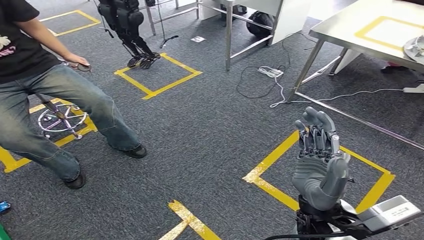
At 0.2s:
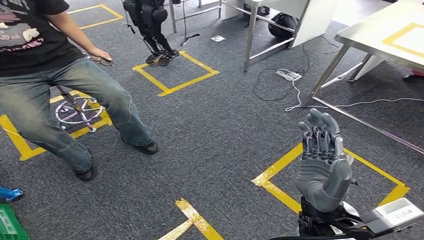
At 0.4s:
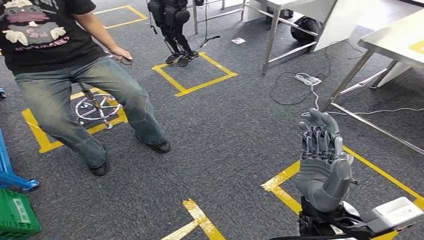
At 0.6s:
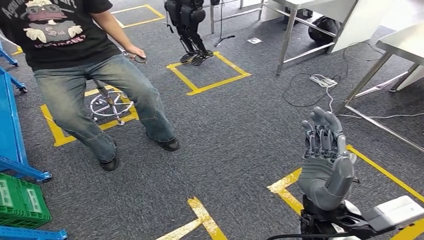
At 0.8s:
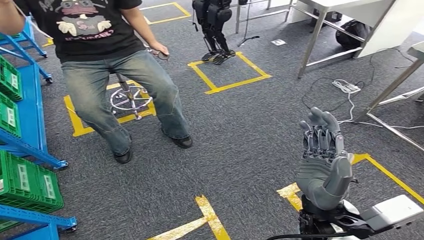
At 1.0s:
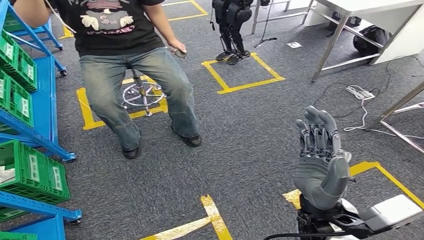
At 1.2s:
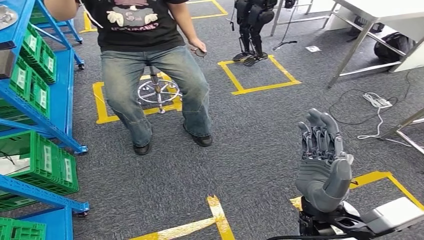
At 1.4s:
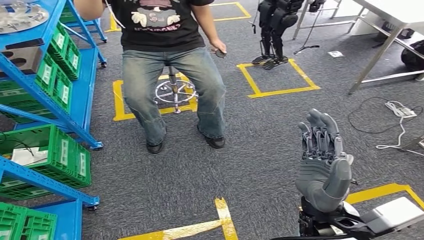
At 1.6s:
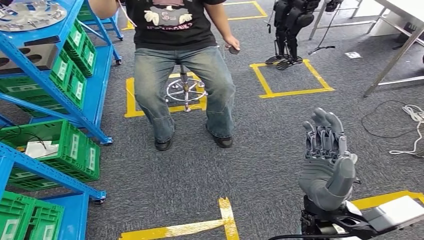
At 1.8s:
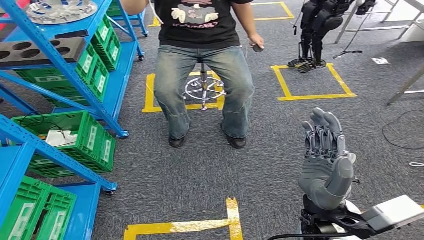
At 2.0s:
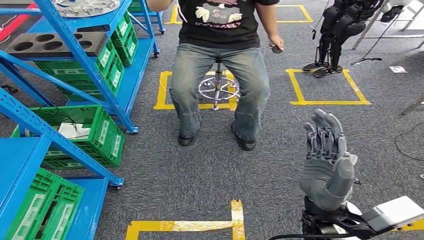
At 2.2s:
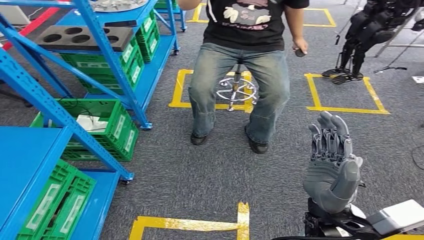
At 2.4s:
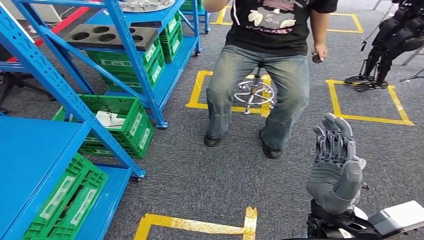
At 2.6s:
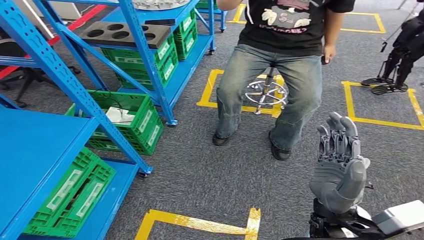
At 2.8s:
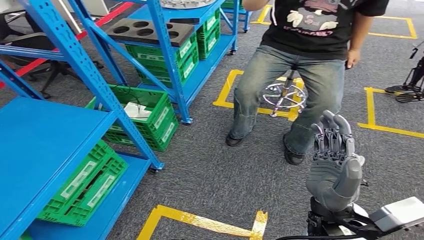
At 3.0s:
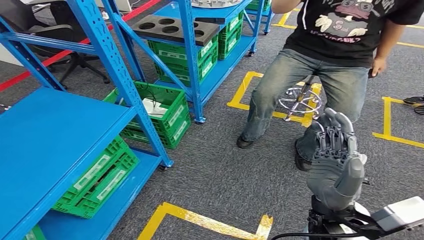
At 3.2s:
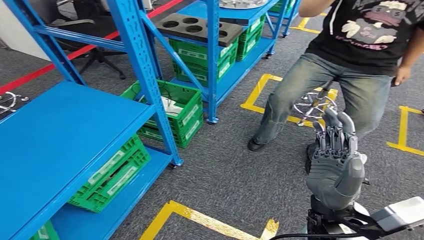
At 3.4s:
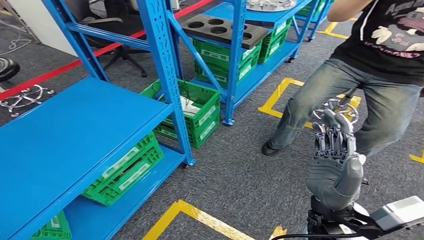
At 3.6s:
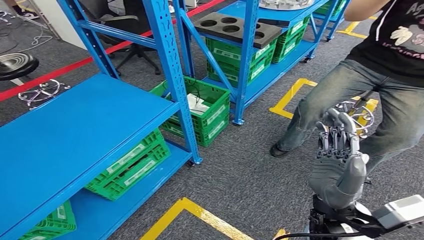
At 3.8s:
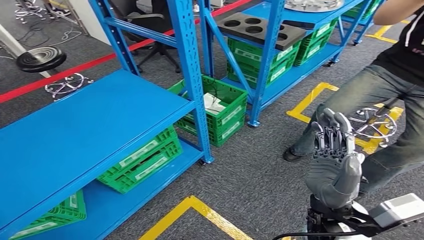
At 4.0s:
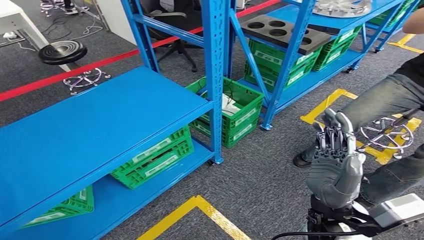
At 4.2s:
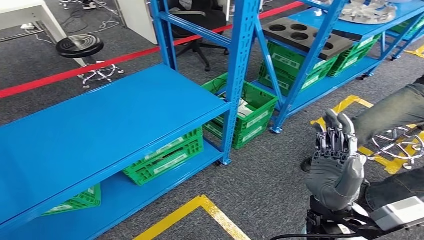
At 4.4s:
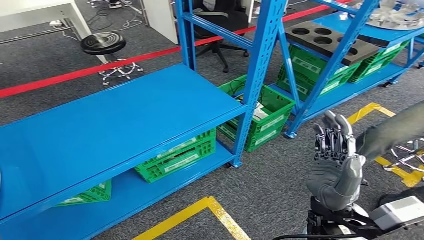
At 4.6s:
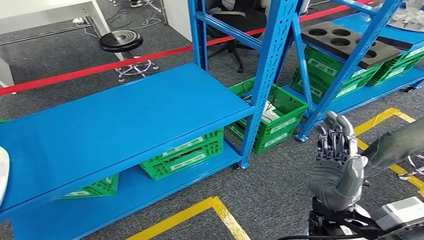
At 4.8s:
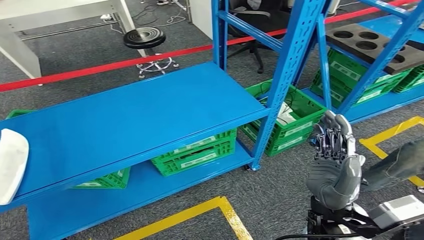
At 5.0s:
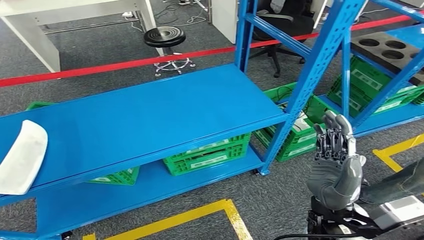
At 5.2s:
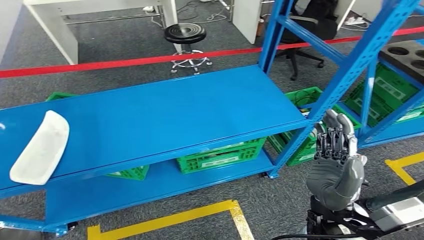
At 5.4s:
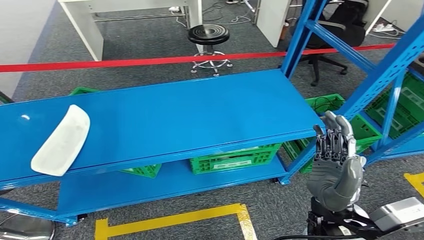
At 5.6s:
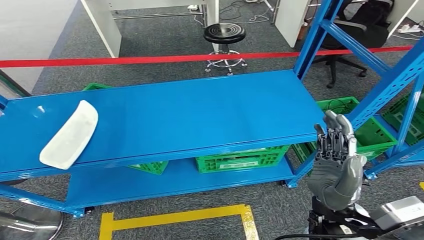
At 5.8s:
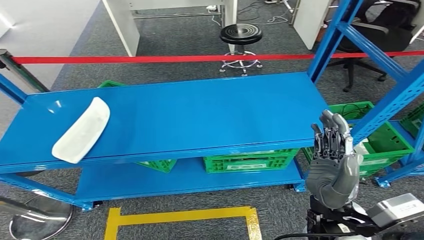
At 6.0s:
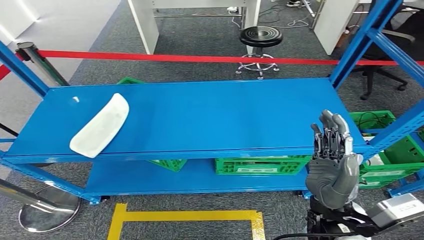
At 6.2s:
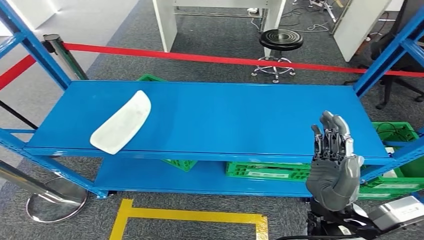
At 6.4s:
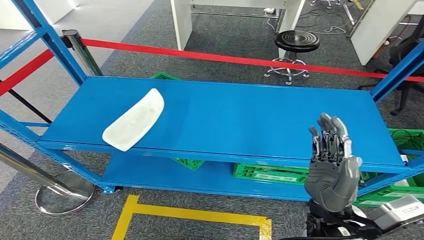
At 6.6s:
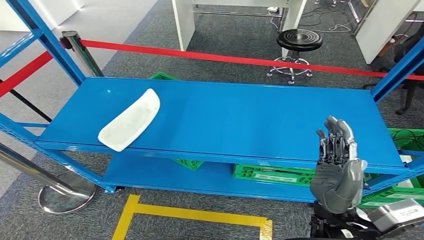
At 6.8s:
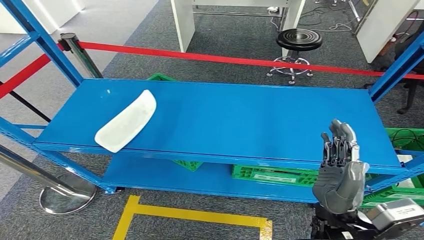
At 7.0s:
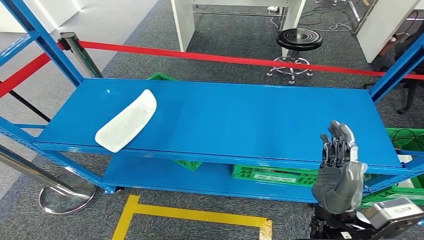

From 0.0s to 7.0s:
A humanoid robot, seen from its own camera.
Step, from 0.0s to 7.0s: Move to the initial position of the workbench.

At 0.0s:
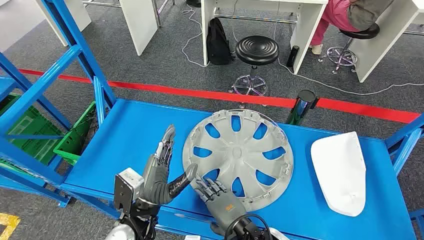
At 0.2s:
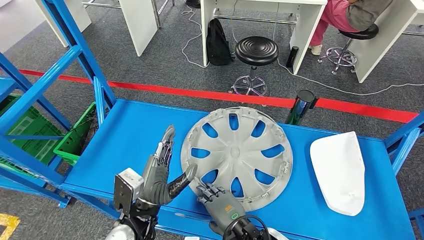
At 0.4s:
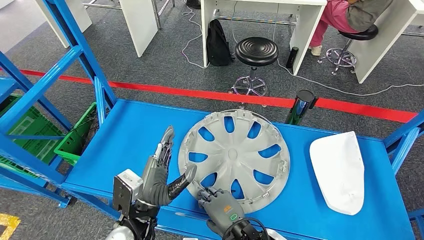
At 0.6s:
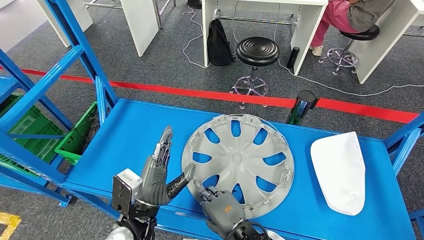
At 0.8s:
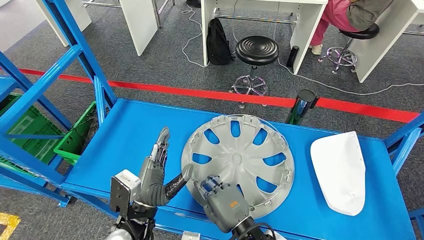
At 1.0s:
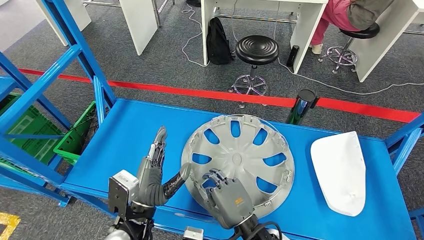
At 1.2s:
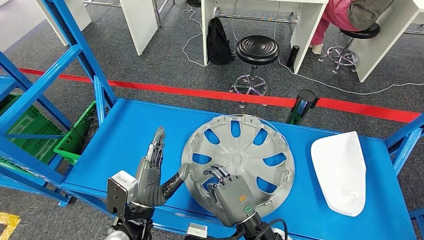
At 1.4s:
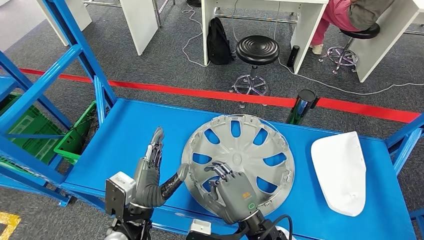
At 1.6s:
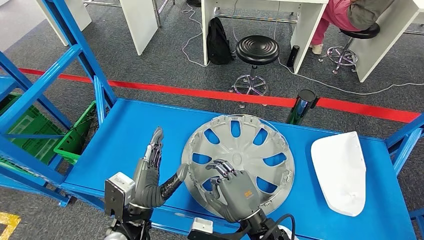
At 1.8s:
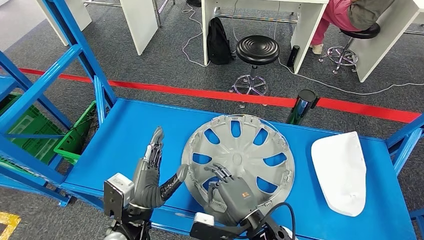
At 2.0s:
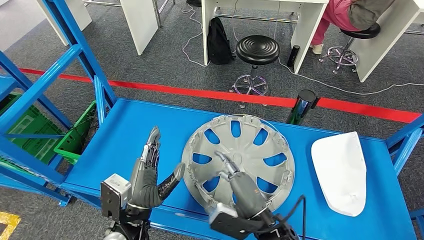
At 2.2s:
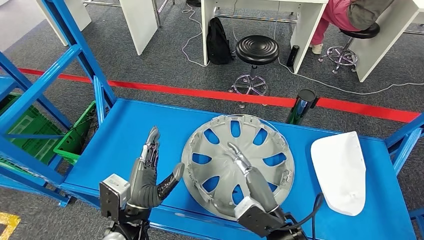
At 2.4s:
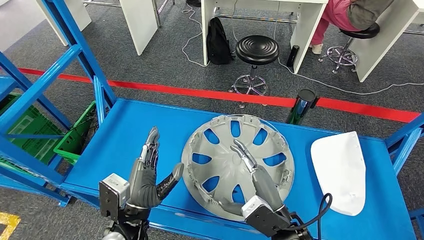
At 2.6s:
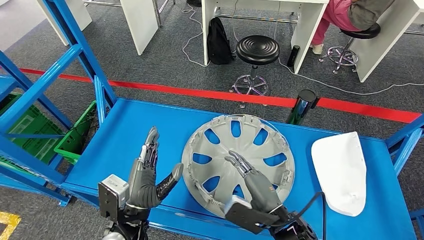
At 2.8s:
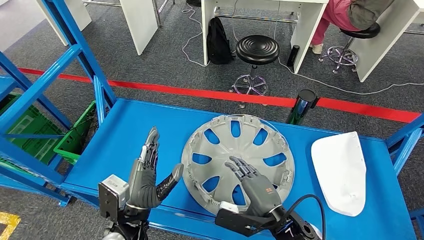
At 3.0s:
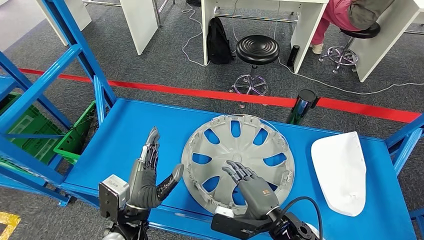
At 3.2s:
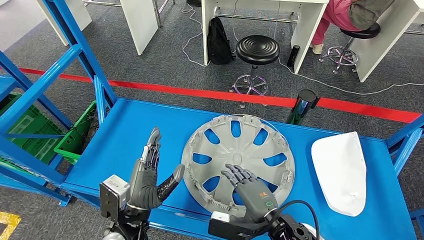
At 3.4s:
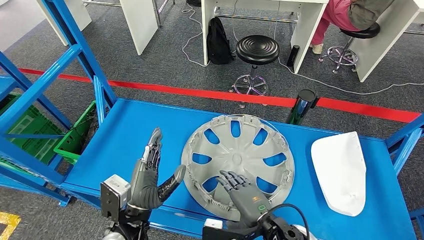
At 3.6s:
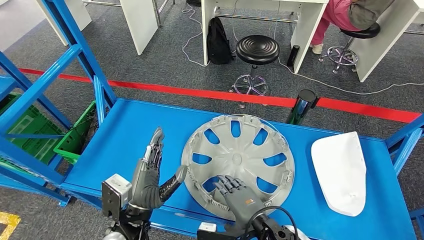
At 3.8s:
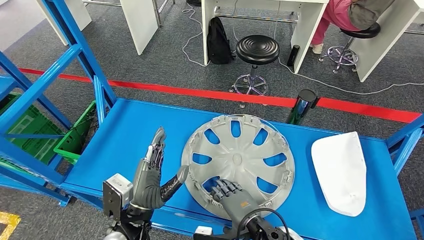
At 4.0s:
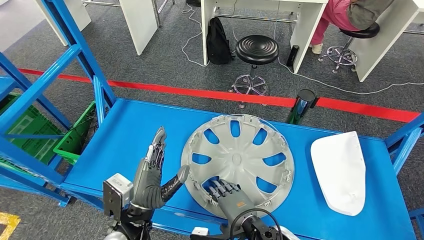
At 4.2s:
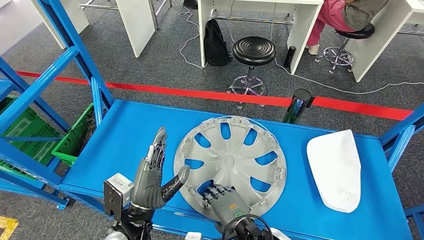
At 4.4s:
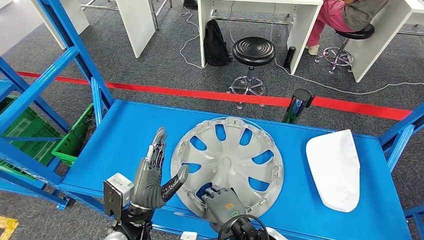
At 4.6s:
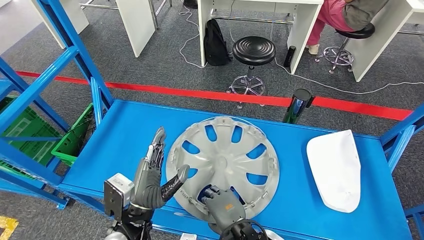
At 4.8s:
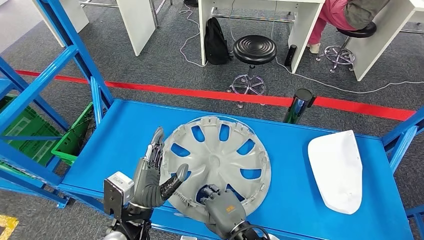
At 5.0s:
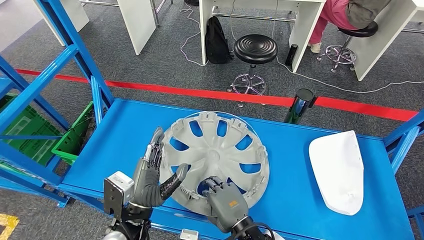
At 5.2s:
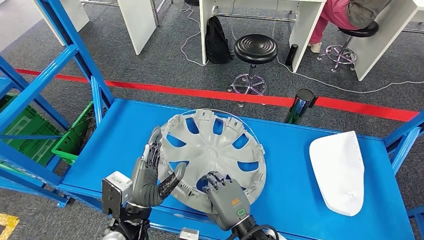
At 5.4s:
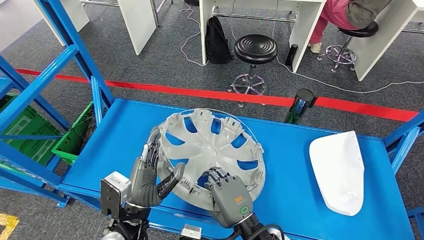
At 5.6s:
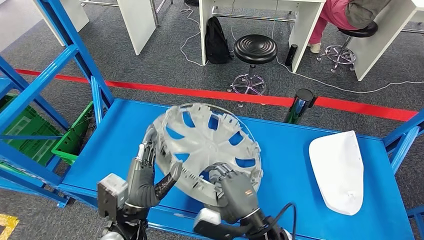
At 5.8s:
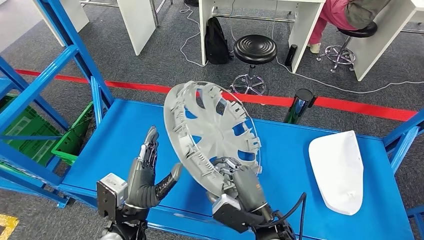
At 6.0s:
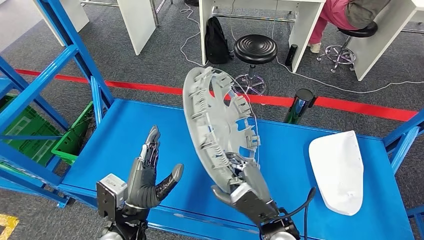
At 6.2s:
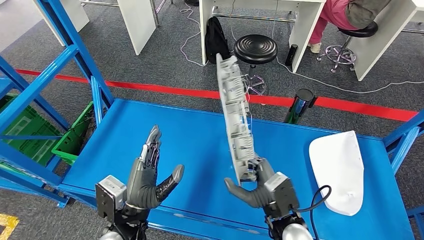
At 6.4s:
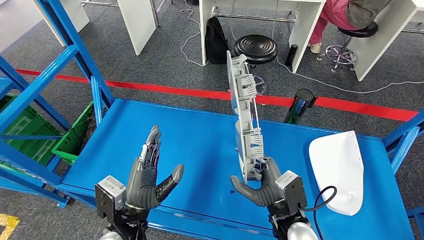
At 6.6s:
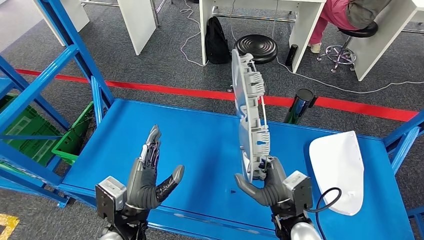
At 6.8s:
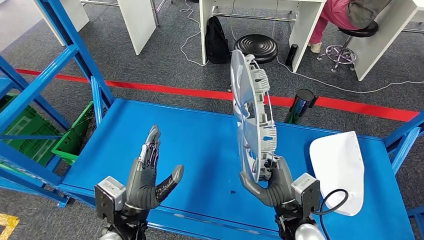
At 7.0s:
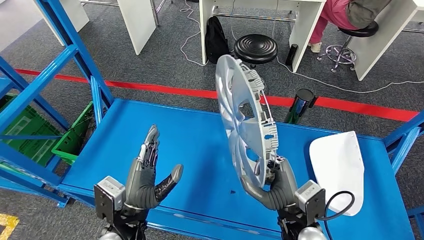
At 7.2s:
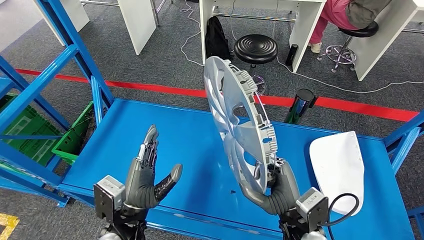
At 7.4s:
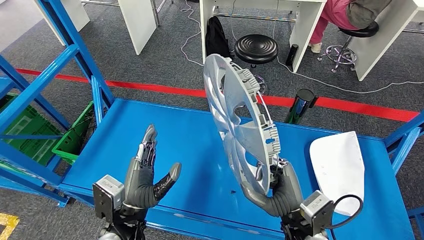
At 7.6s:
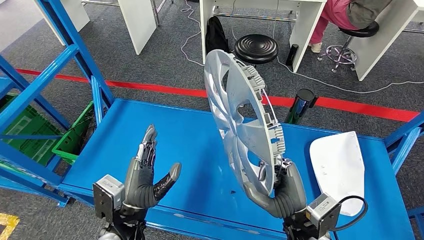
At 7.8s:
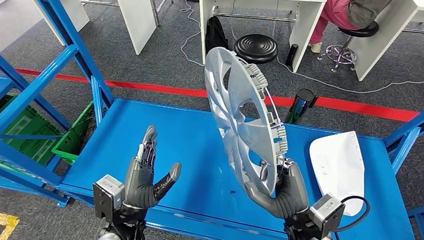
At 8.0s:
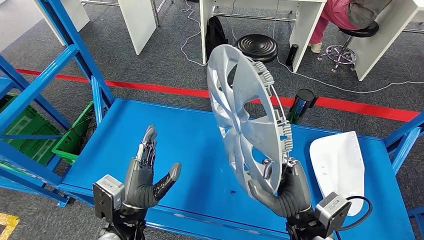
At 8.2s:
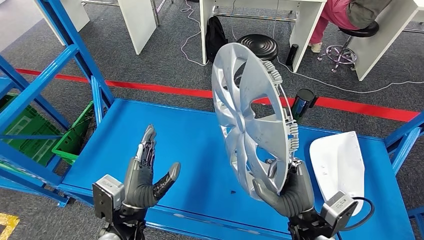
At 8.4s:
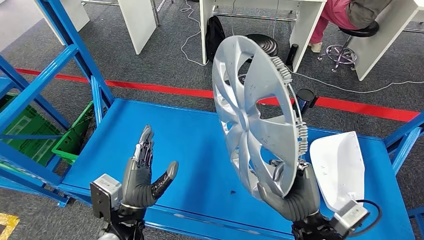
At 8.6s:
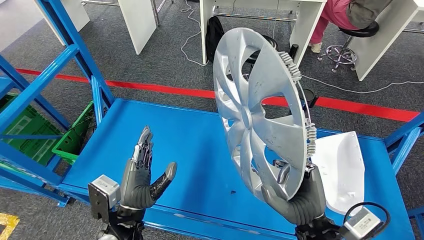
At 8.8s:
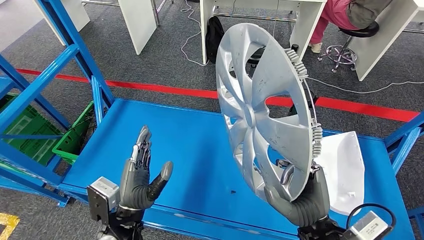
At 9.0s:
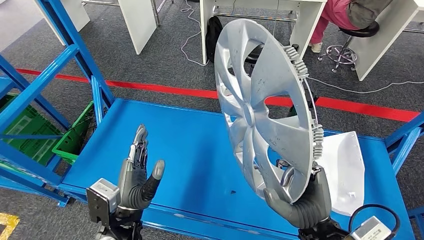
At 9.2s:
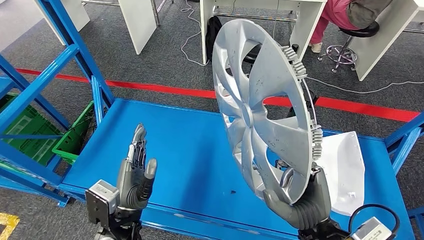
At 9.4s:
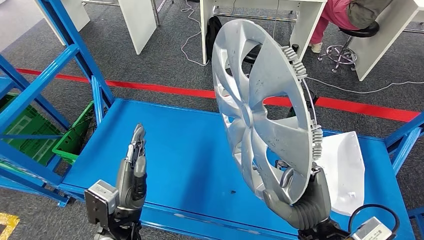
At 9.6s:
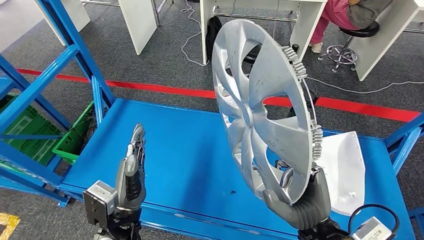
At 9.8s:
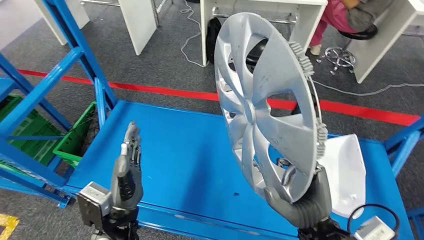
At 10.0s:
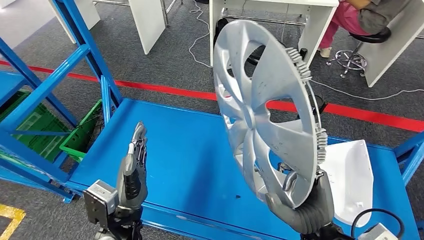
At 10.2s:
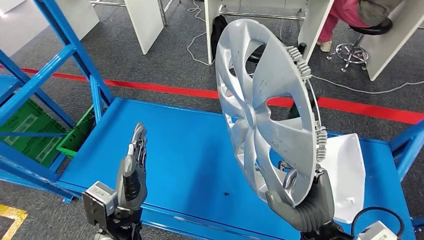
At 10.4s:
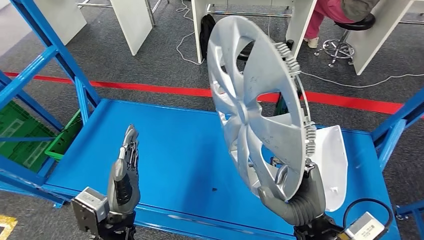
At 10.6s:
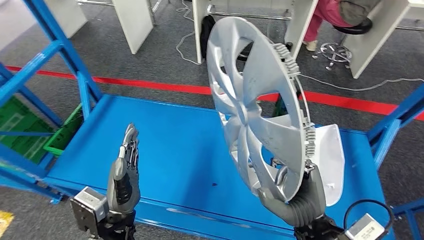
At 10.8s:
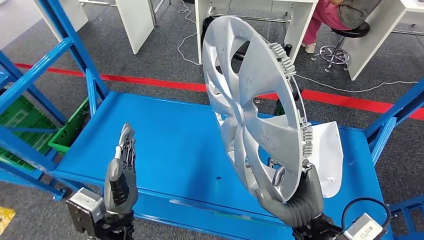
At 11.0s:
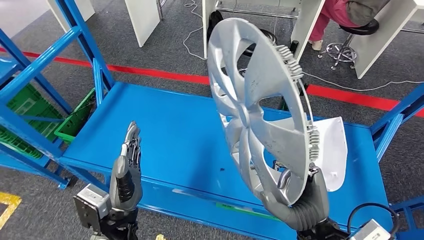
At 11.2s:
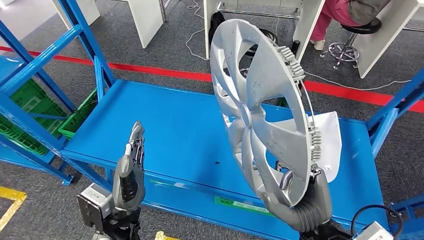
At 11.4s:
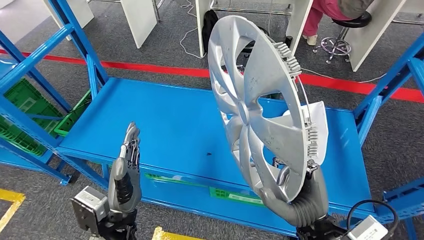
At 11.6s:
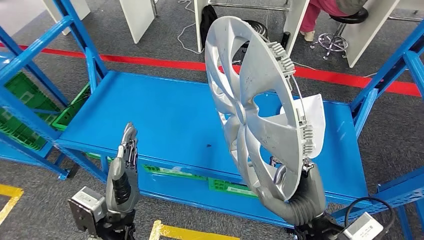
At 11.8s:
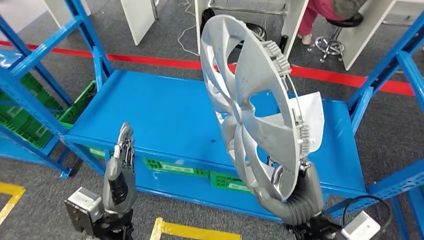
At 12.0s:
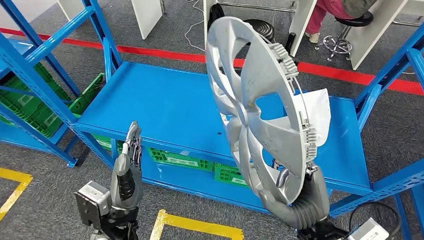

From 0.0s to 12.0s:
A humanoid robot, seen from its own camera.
Step, from 0.0s to 9.8s: Take small components from the rack.
From 1.6s to 3.0s: The right hand heads to the right, covering some 5 cm.
From 6.0s to 7.6s: The right hand changes place by some 5 cm.
